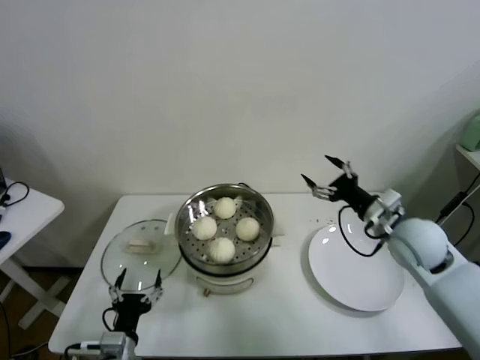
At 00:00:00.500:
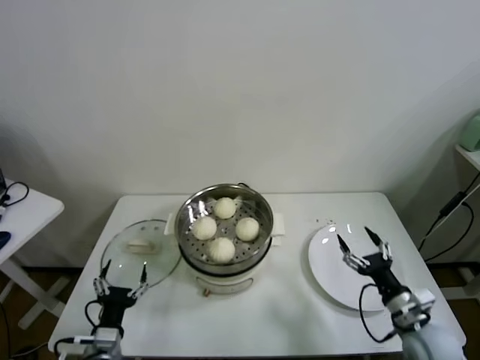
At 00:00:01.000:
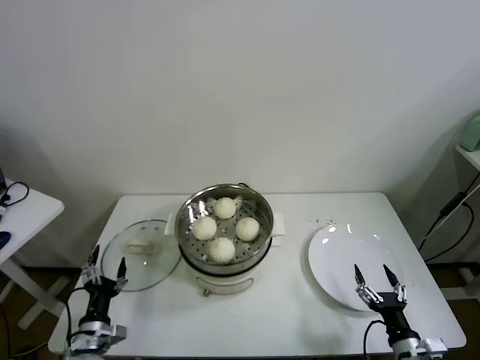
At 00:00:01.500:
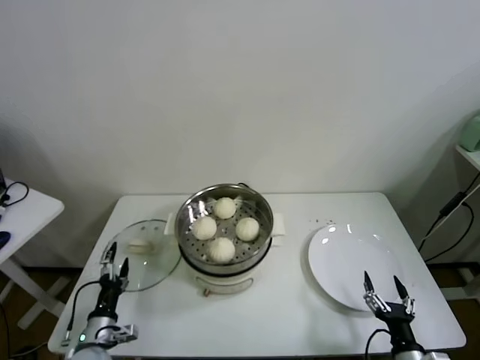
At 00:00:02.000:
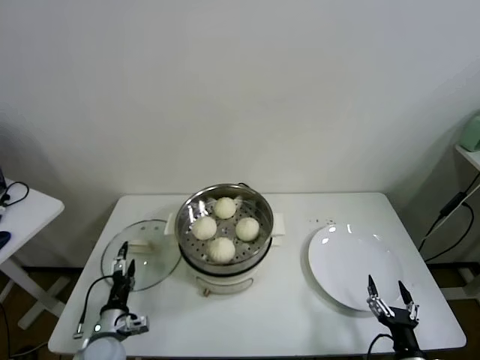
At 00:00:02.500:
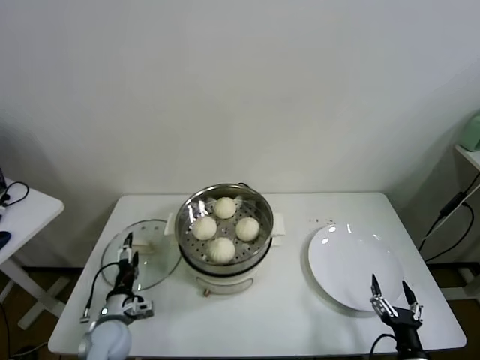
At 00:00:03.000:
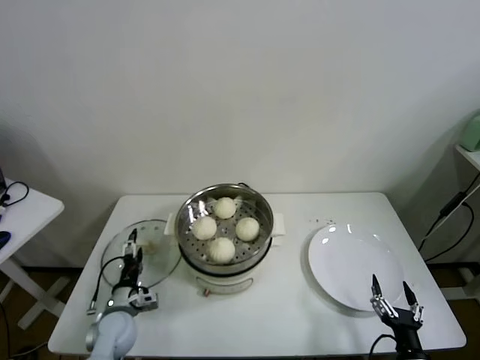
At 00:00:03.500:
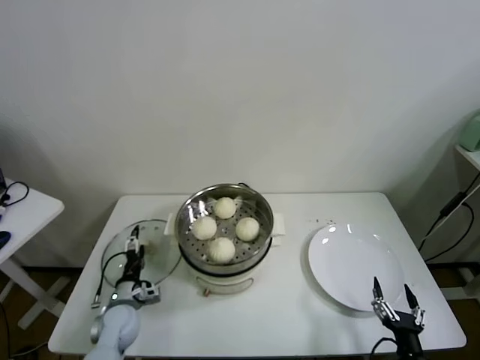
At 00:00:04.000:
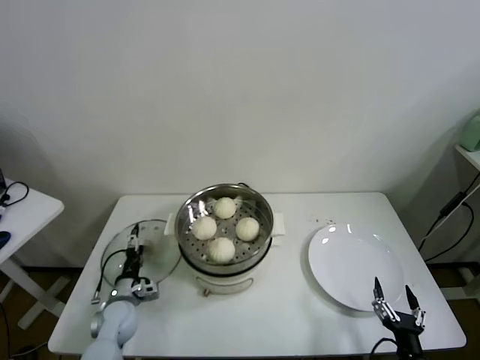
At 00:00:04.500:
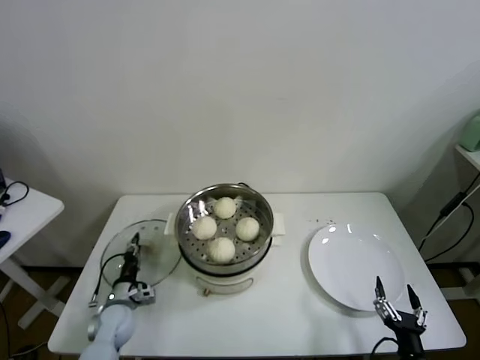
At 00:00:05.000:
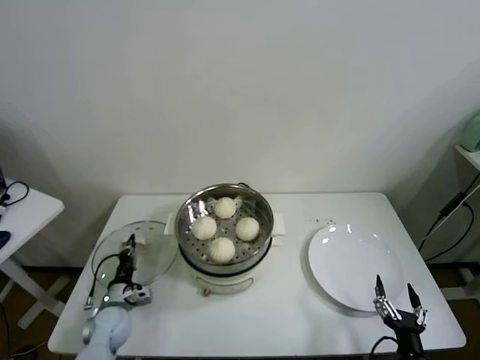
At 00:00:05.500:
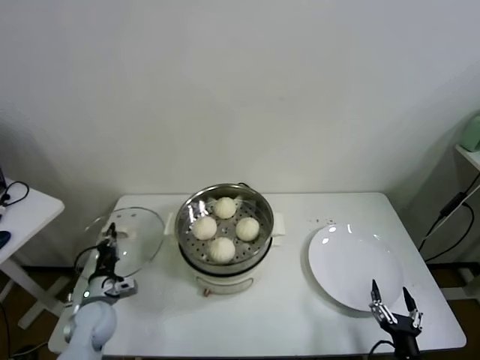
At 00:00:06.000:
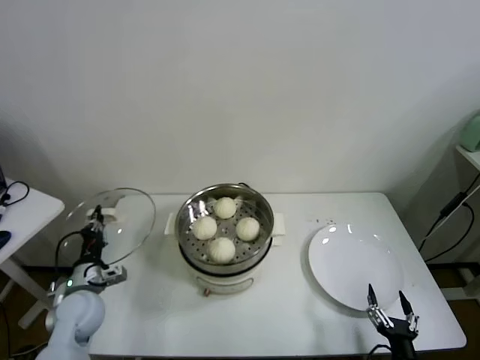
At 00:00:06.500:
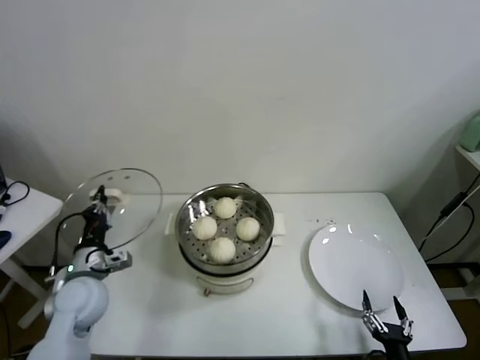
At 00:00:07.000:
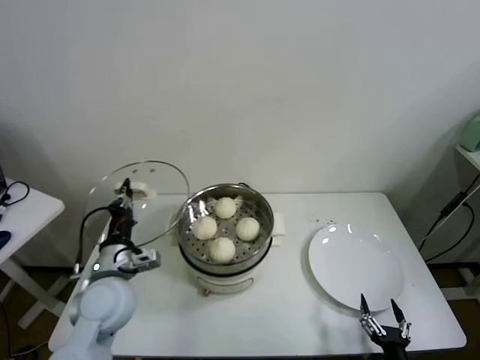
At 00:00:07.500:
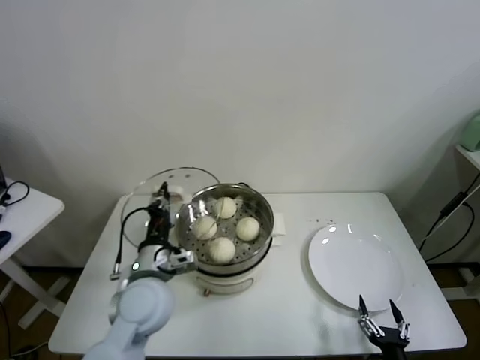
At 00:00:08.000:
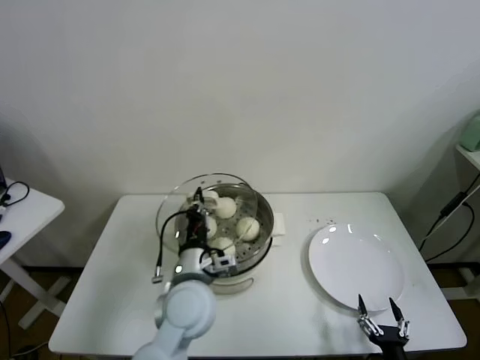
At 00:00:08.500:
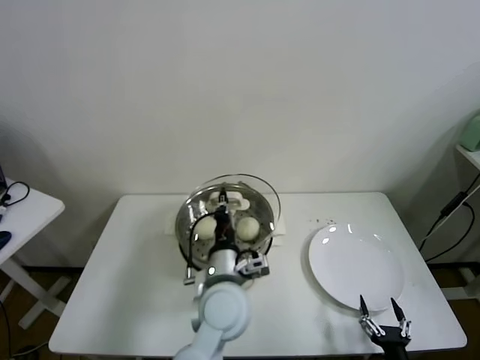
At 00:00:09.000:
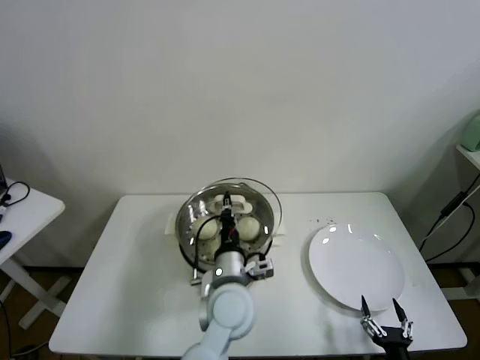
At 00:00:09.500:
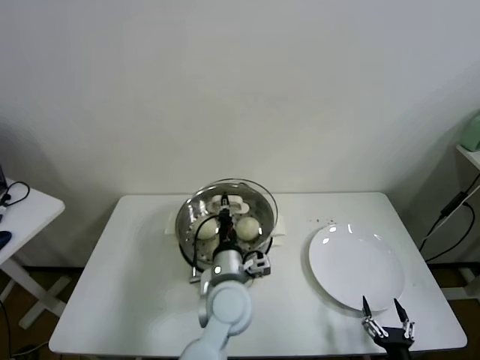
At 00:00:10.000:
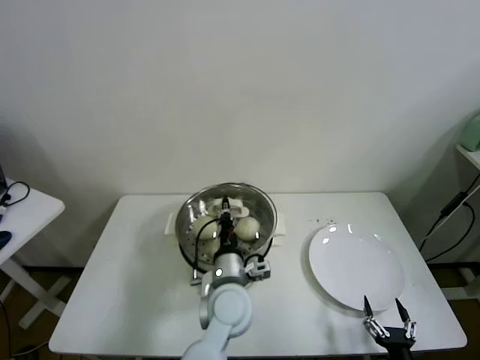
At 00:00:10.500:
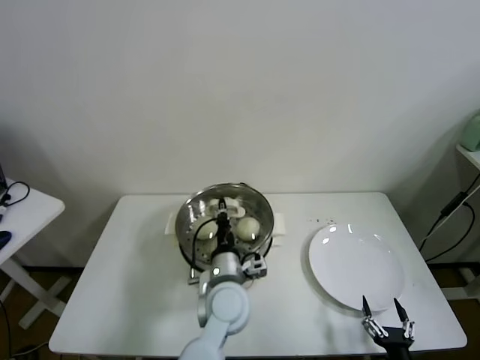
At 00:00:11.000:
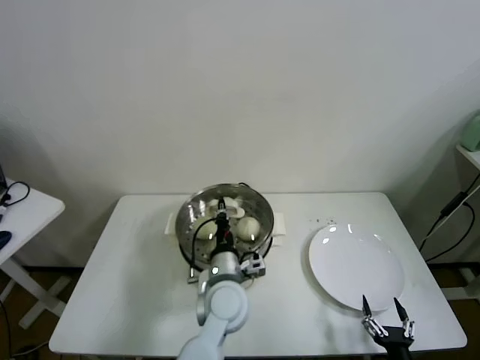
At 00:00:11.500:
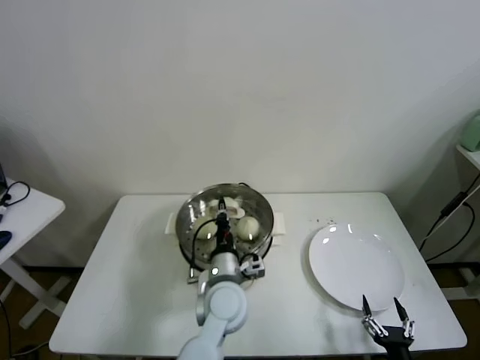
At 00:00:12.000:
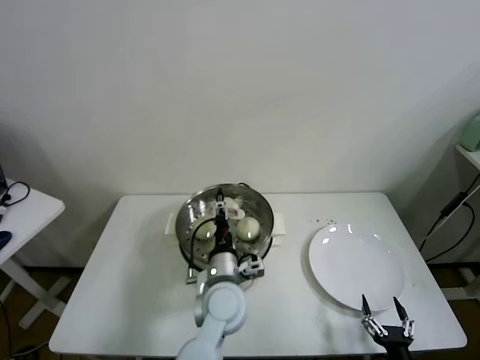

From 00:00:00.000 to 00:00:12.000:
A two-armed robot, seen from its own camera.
Task of the whole recording: take steamed baozi put them in steamer.
Step, from 00:00:00.000 to 00:00:04.500: Grasp the pot lid with left gripper.
From 00:00:00.000 to 00:00:02.000: The left gripper is displaced forward, to the left and downward by about 10 cm; the right gripper travels backward and downward by some 35 cm.
From 00:00:02.000 to 00:00:04.000: The left gripper travels forward by some 10 cm.
From 00:00:04.000 to 00:00:06.000: The left gripper travels upward by approximately 10 cm, and closes.
From 00:00:06.000 to 00:00:08.000: The left gripper goes roughly 25 cm to the right and upward.
From 00:00:08.000 to 00:00:10.000: The left gripper is displaced to the right by approximately 10 cm.
From 00:00:10.000 to 00:00:12.000: The left gripper opens up.

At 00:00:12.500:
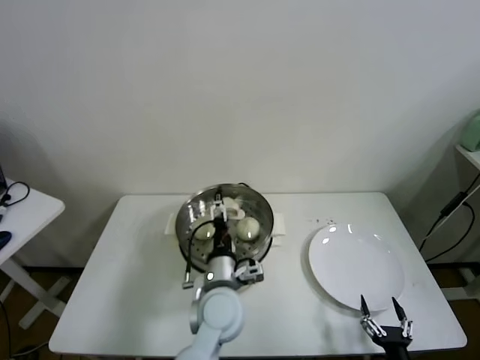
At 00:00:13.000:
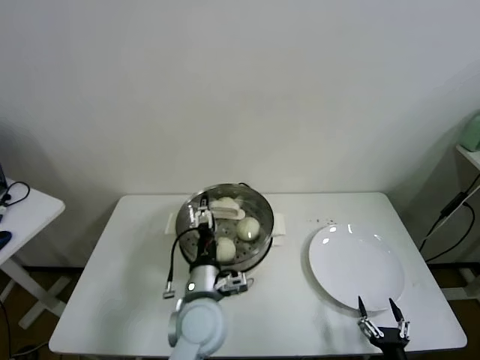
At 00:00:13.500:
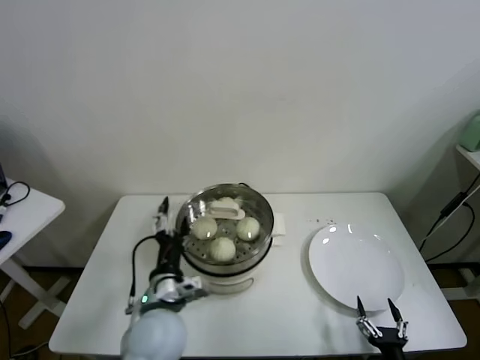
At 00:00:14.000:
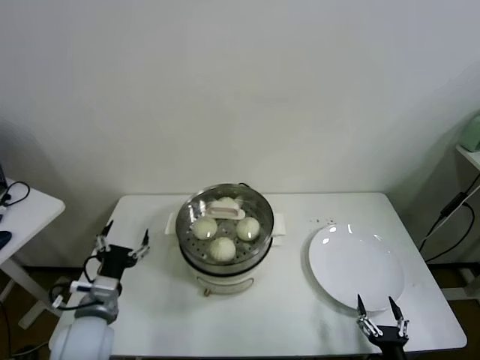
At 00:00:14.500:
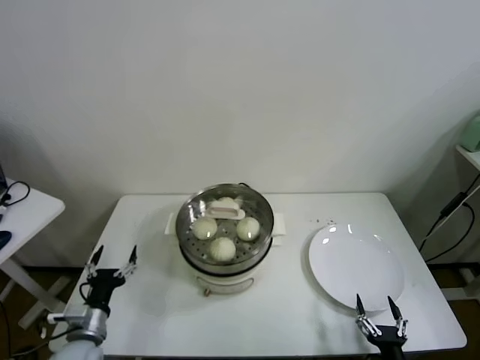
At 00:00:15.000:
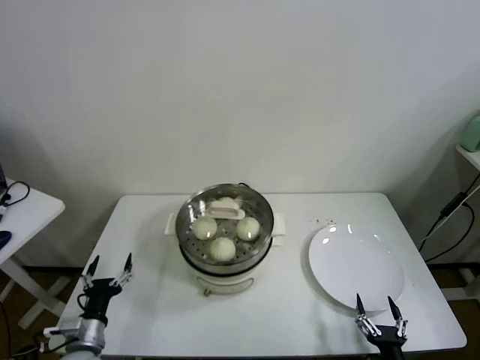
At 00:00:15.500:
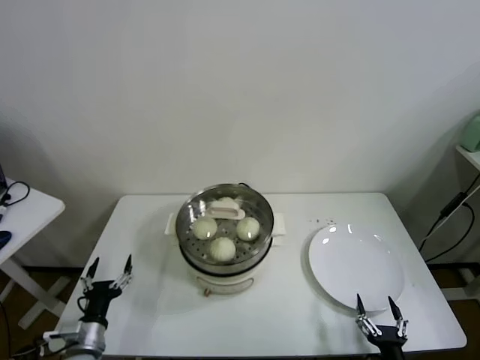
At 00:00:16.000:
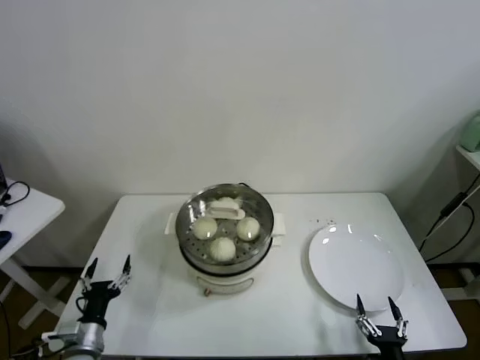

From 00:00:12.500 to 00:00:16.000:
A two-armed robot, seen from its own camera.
Task of the whole recording: take steamed baozi put them in steamer.
From 00:00:12.500 to 00:00:14.500: The left gripper is displaced to the left by roughly 30 cm.
From 00:00:14.500 to 00:00:16.000: The left gripper shifts by approximately 5 cm.
